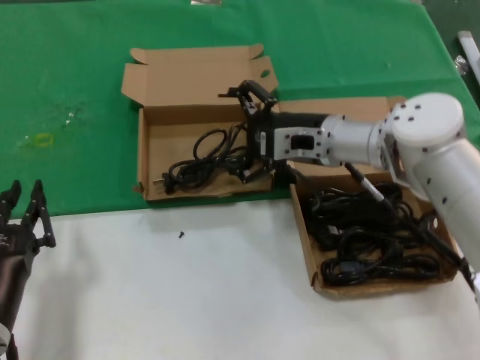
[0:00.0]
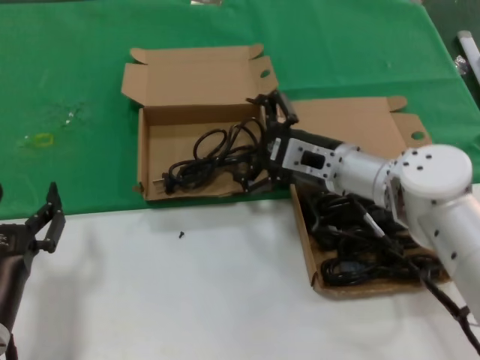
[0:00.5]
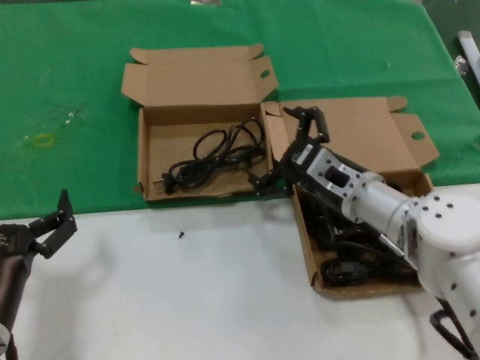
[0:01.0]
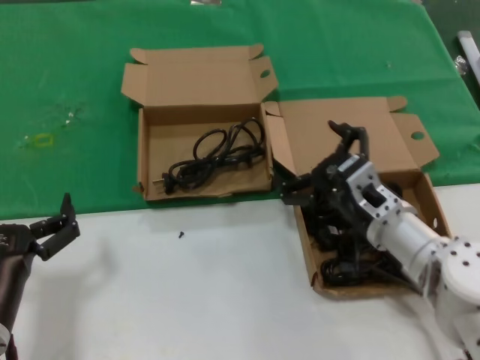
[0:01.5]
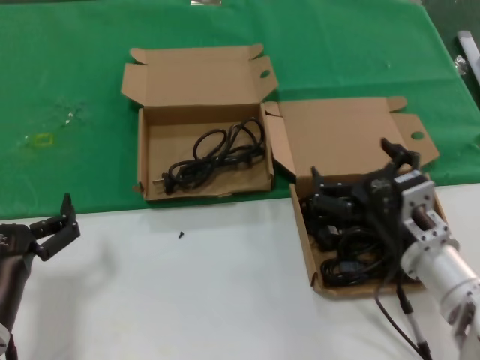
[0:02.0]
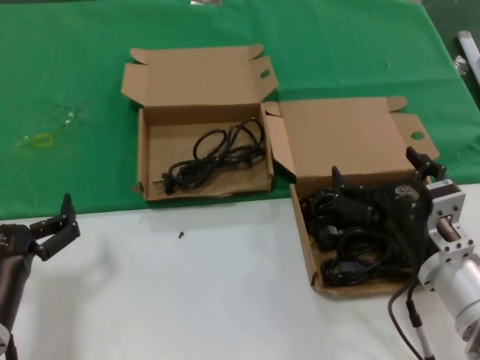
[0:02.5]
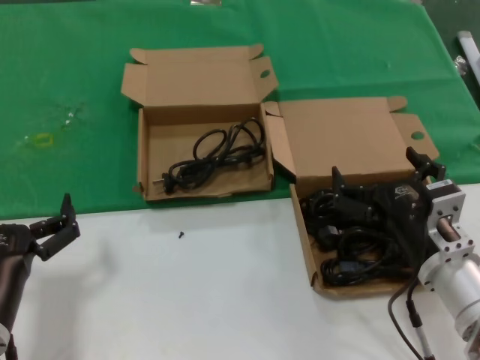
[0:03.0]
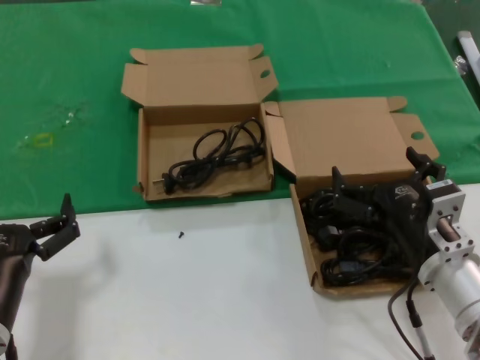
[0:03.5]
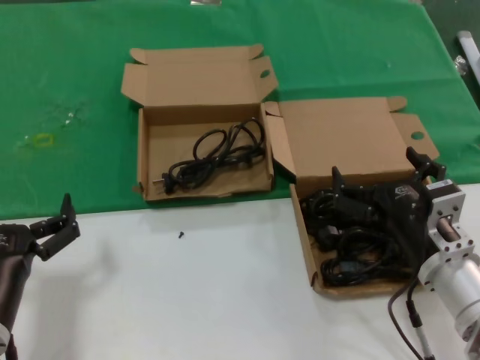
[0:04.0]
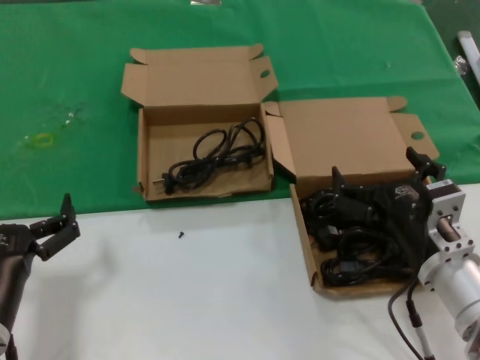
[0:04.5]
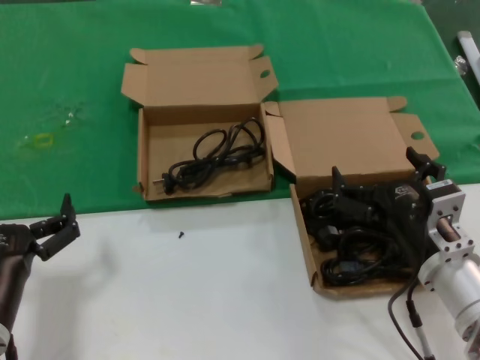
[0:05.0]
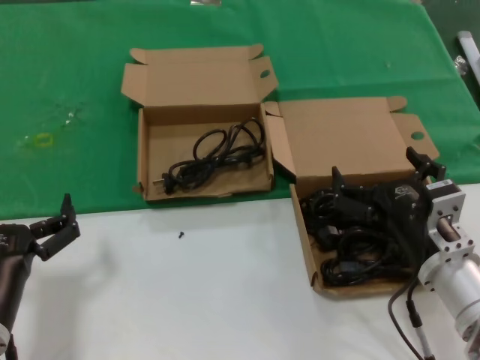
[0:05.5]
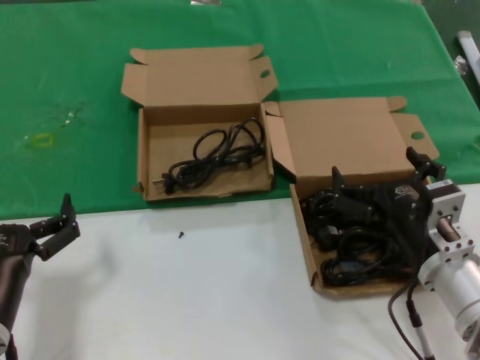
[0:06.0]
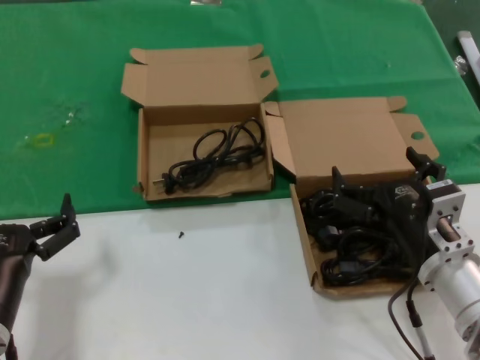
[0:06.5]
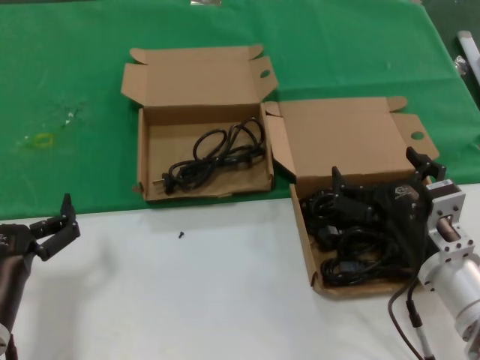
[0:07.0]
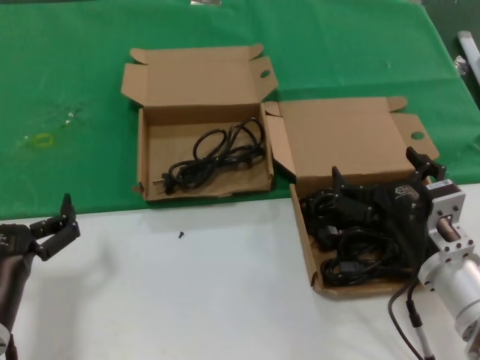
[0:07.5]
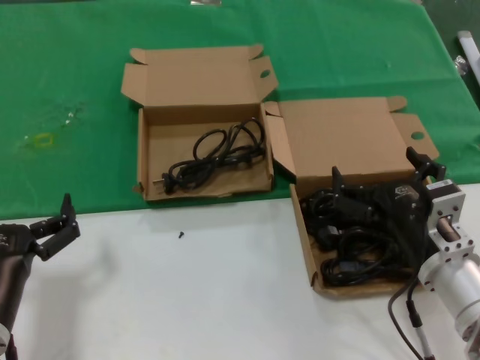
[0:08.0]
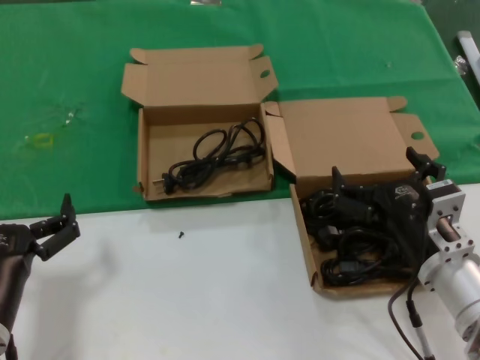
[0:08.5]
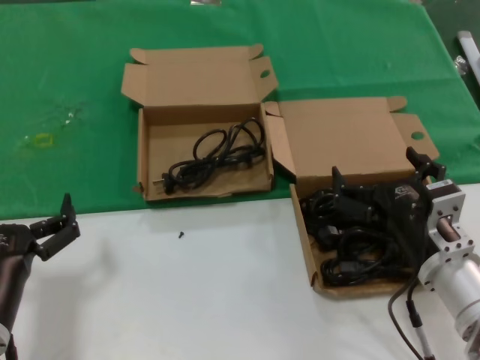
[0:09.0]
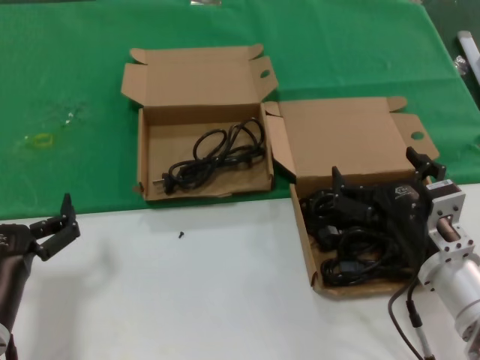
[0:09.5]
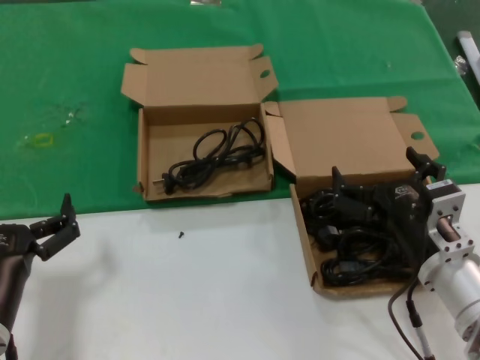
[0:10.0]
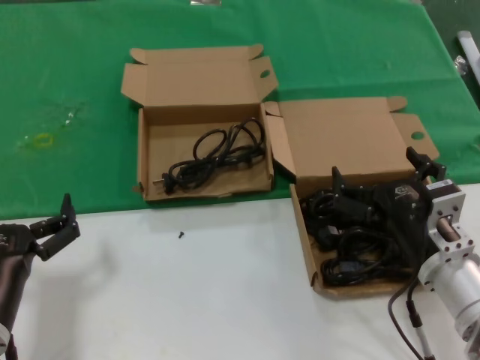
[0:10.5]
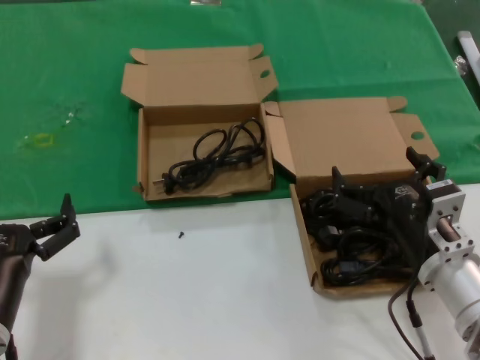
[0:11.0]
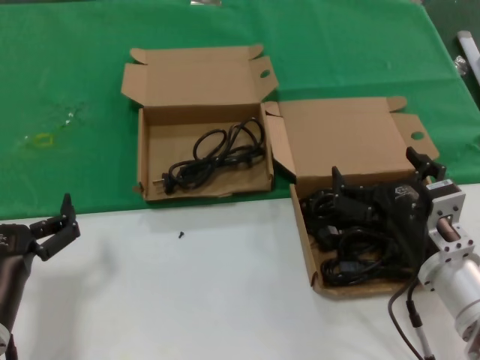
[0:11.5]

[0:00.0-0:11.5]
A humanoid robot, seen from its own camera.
Task of the whole recording: take the parts from the box containing them and put them into an empty box.
0:00.0 to 0:02.0: The right hand travels backward and downward by roughly 20 cm.
0:02.0 to 0:04.0: The hands move only a little.
0:04.0 to 0:11.5: Neither hand changes place.

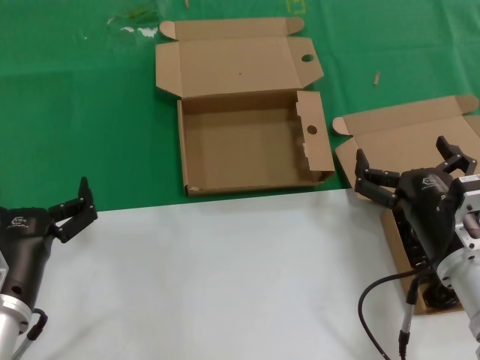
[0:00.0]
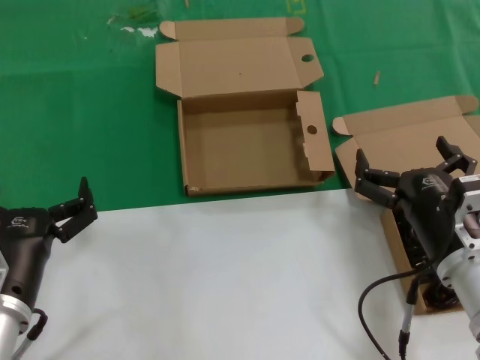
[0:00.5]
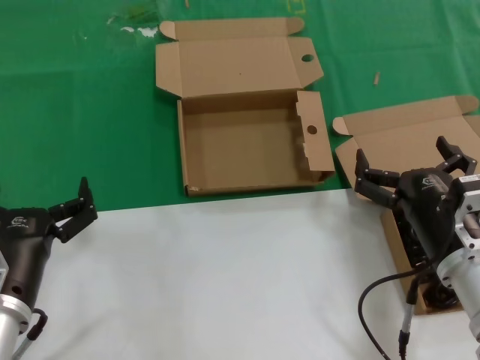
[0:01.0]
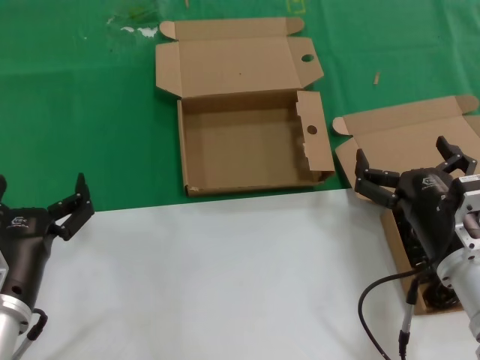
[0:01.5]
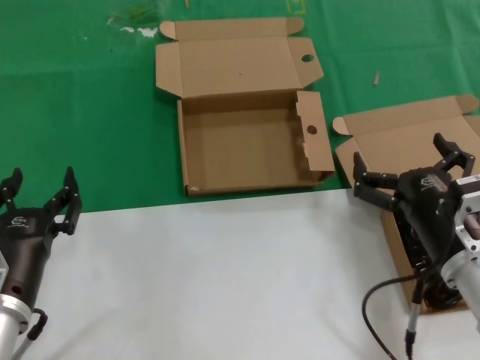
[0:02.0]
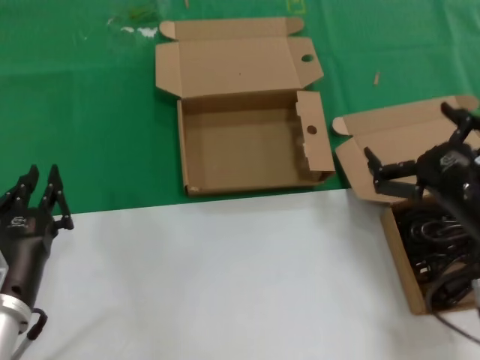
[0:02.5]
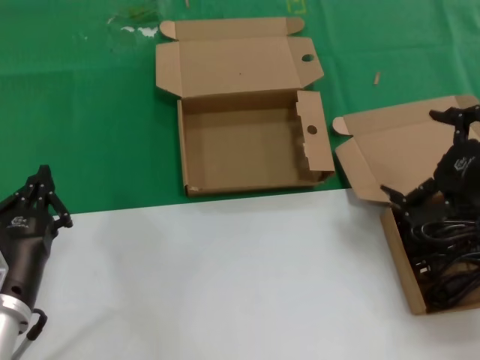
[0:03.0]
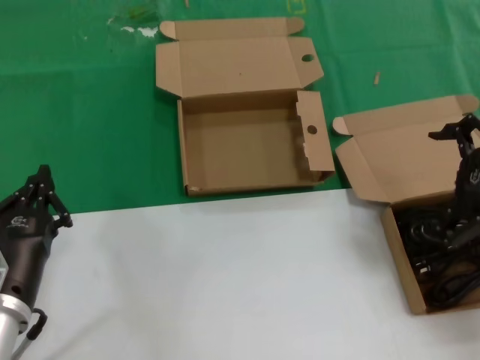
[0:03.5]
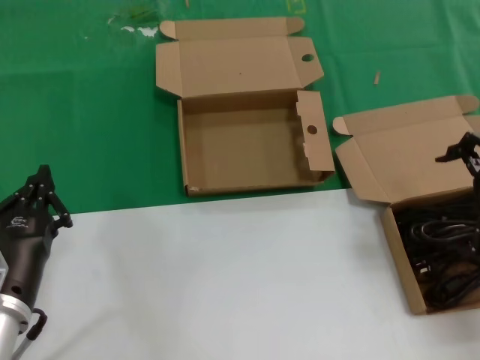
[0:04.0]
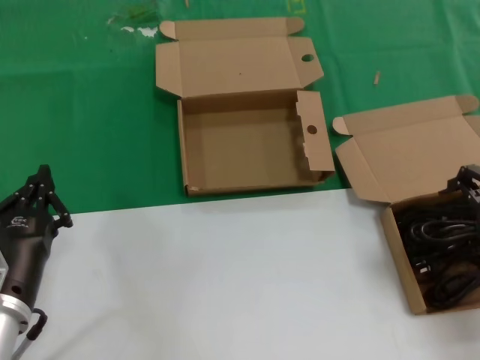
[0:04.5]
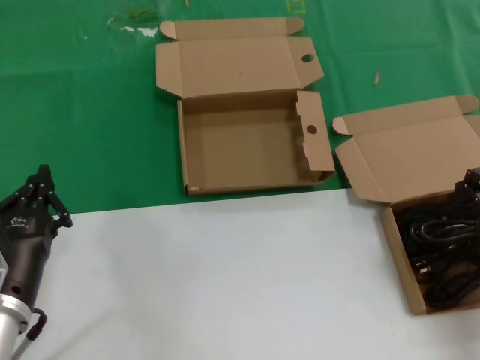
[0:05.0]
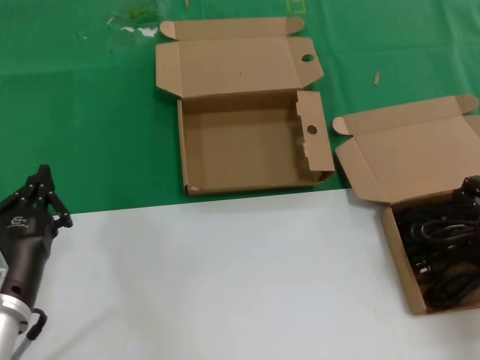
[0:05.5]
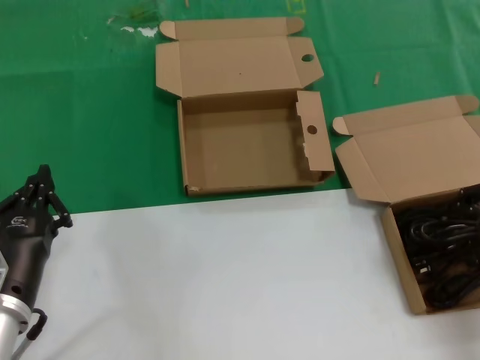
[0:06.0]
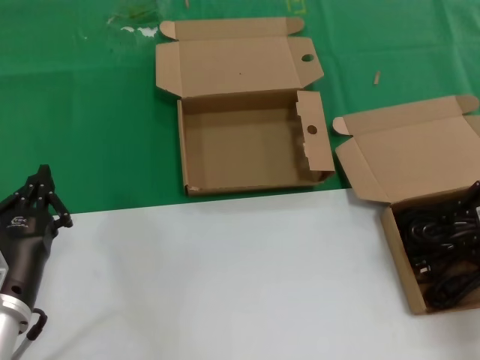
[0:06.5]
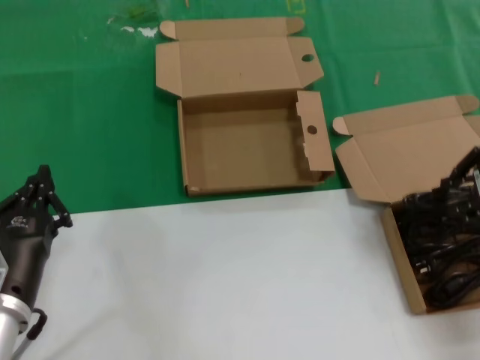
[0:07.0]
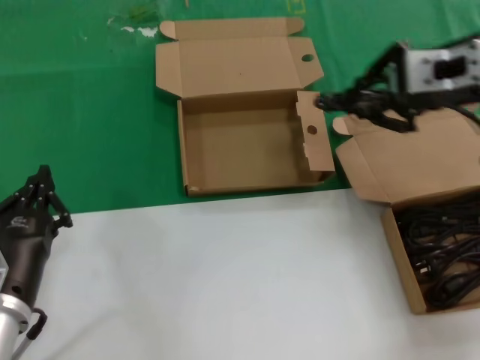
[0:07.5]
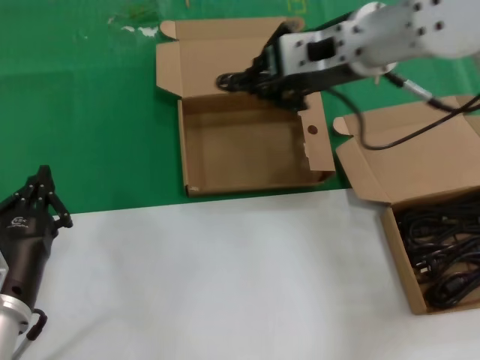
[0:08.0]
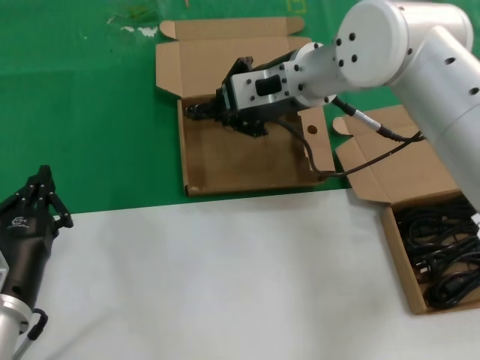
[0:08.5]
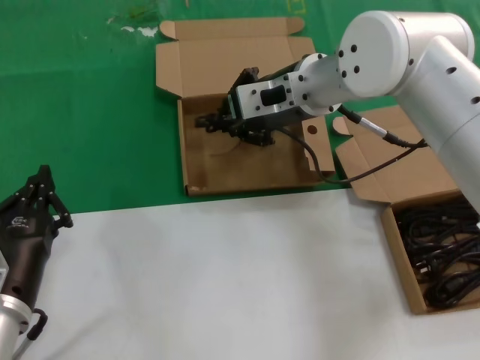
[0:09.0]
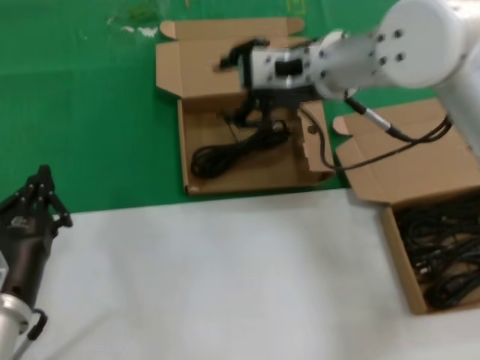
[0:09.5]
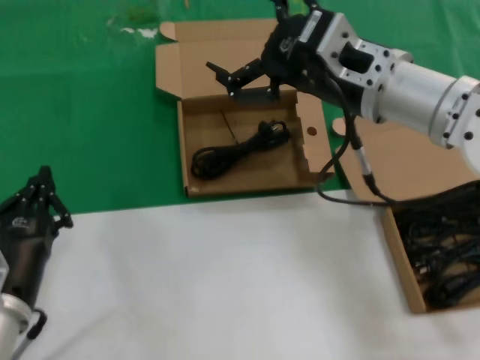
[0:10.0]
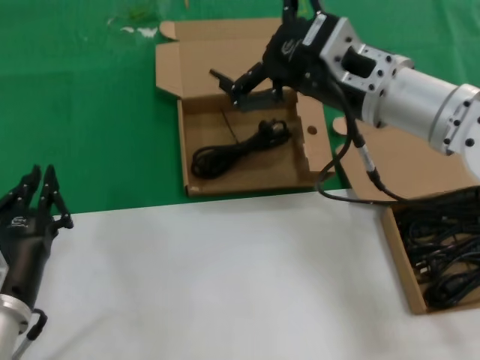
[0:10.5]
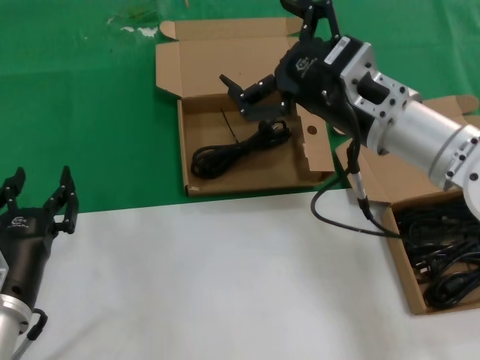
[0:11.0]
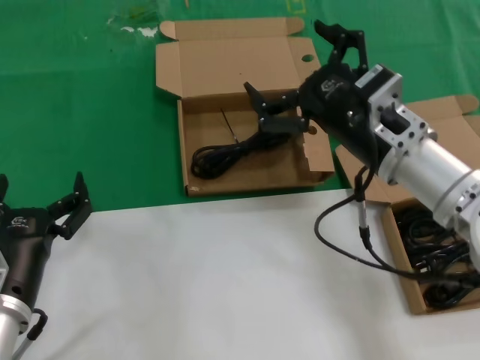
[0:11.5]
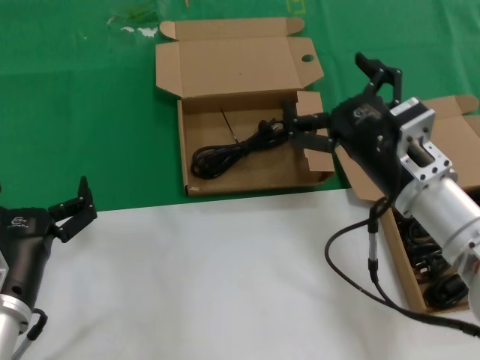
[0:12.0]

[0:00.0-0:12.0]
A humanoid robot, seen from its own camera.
Task of the whole recording: take the parts from the box containing them and put them into an empty box.
Step, 0:00.0 to 0:06.0: Grasp the data cable.
Step, 0:06.5 to 0:09.0: Place the data cable in the another box.
0:00.0 to 0:02.0: Both hands stay about where they are.
0:02.0 to 0:04.0: The right hand is displaced upward and to the right by some 25 cm.
0:04.0 to 0:06.0: The right hand moves some 5 cm.
0:06.0 to 0:08.0: The right hand moves to the left, forward and upward, about 25 cm.
0:08.0 to 0:10.0: The right hand goes approximately 10 cm backward and downward.
0:10.0 to 0:12.0: The right hand is displaced downward and backward by approximately 15 cm.

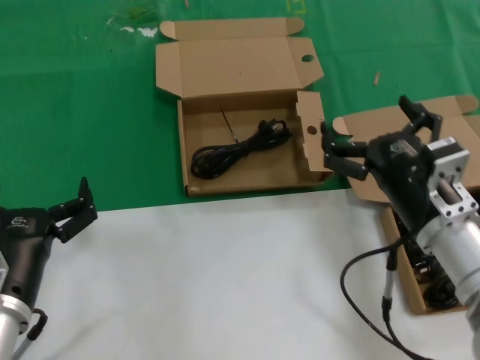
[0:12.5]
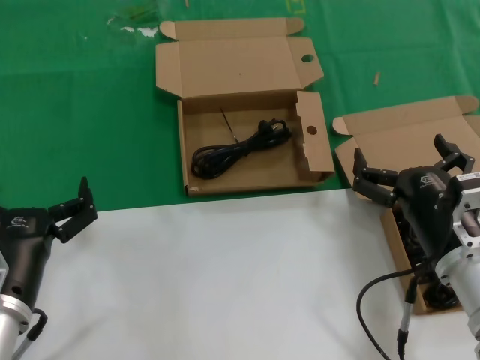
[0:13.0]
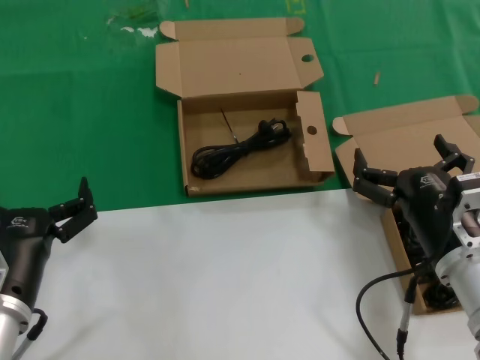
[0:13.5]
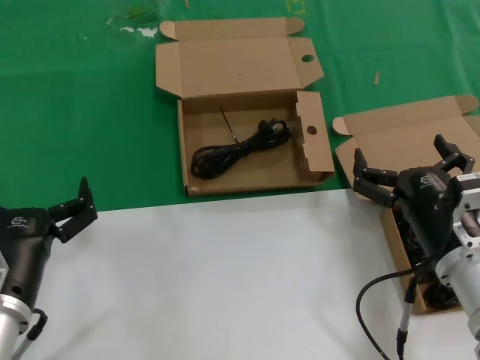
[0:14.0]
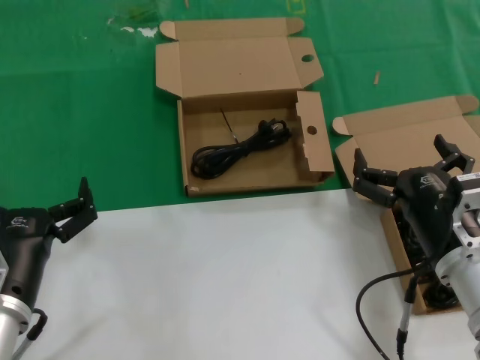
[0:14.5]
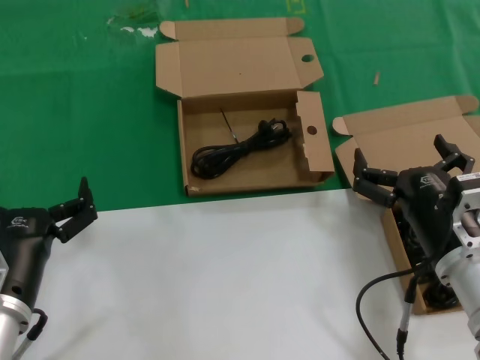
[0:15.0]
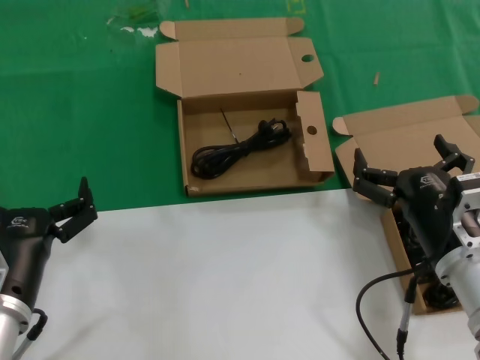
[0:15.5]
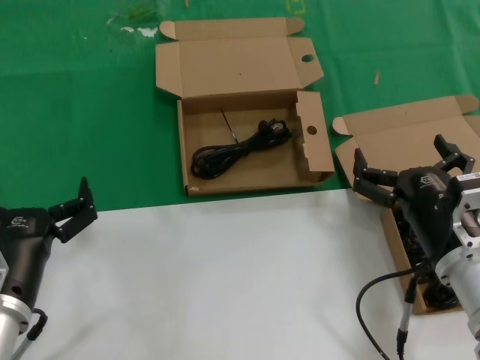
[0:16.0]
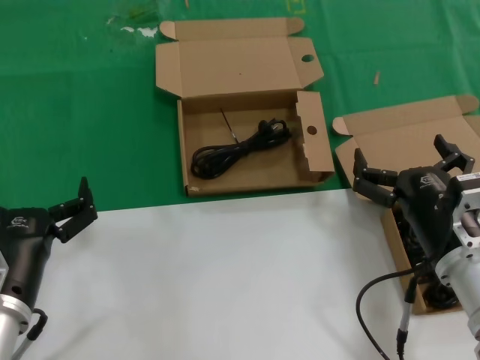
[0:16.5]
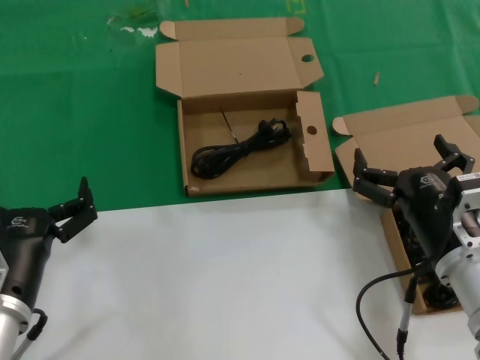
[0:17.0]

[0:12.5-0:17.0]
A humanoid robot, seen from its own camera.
Task of the whole recording: take the parts from the box containing them and put them into an empty box.
0:12.5 to 0:14.5: There are only small adjustments of the hands.
0:14.5 to 0:17.0: Both hands stay put.
